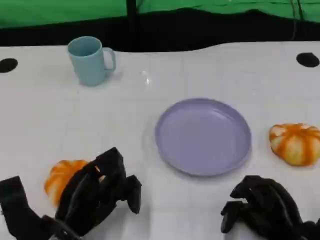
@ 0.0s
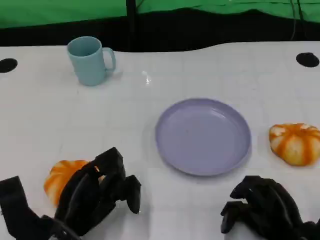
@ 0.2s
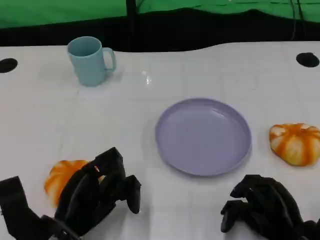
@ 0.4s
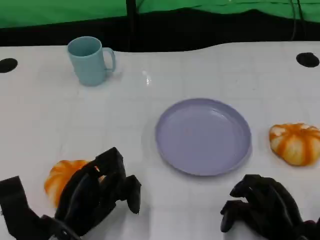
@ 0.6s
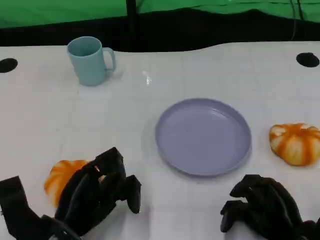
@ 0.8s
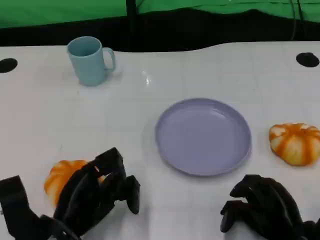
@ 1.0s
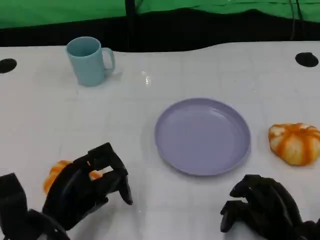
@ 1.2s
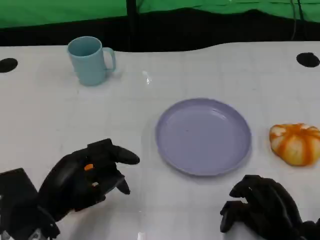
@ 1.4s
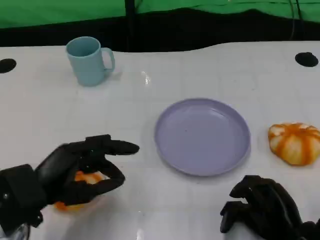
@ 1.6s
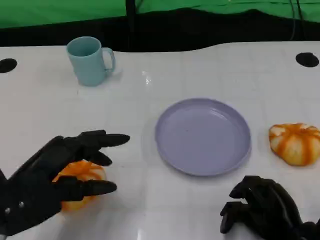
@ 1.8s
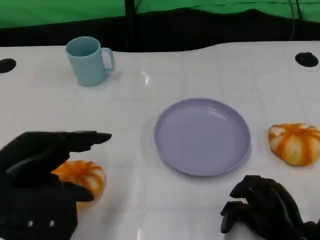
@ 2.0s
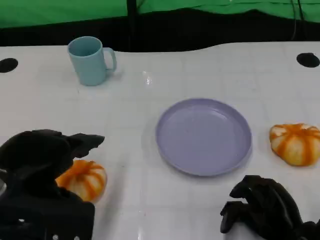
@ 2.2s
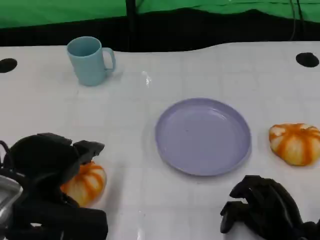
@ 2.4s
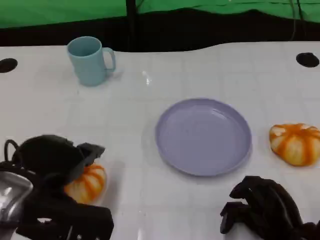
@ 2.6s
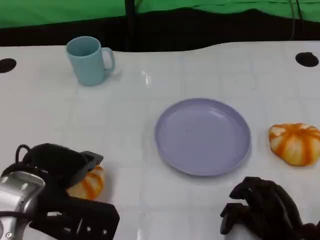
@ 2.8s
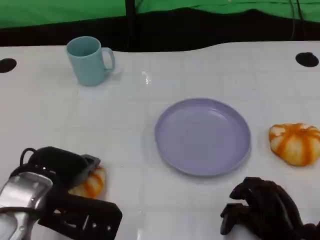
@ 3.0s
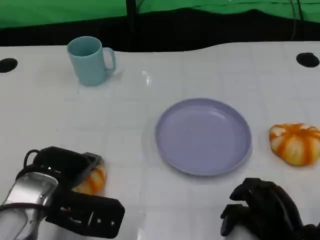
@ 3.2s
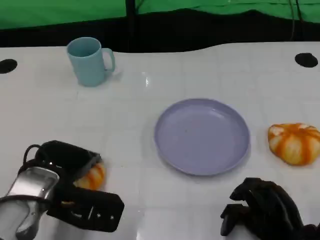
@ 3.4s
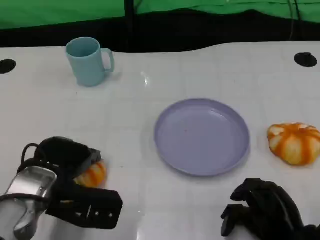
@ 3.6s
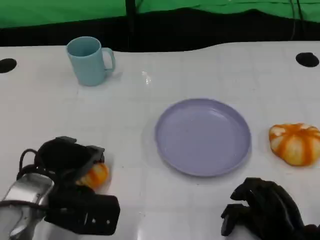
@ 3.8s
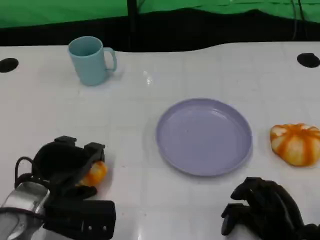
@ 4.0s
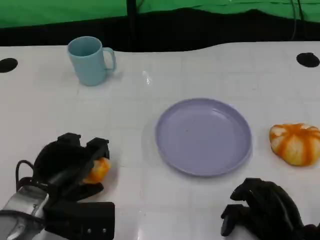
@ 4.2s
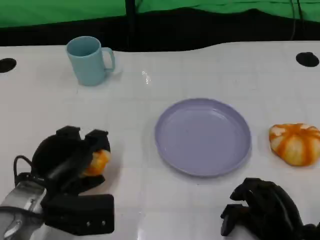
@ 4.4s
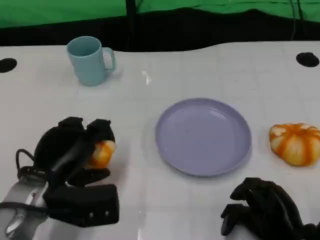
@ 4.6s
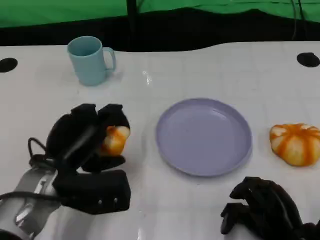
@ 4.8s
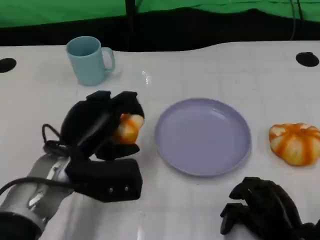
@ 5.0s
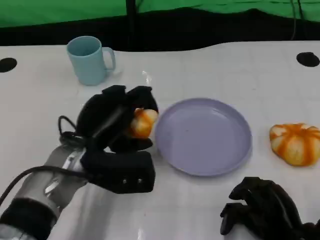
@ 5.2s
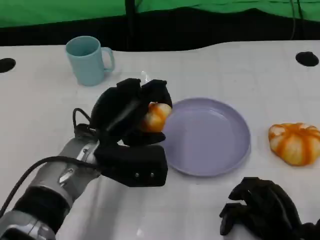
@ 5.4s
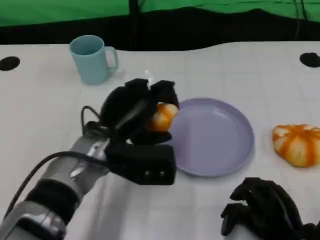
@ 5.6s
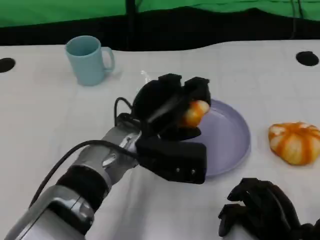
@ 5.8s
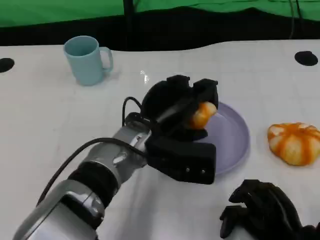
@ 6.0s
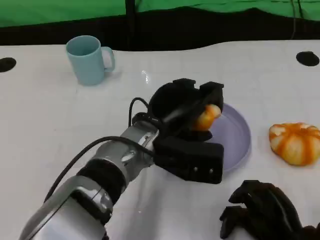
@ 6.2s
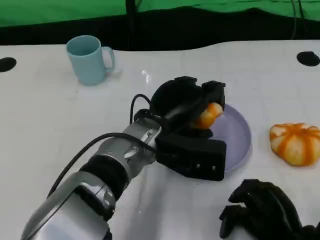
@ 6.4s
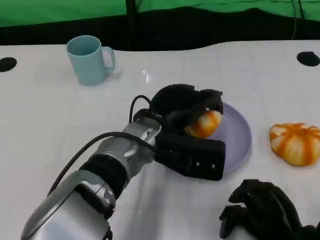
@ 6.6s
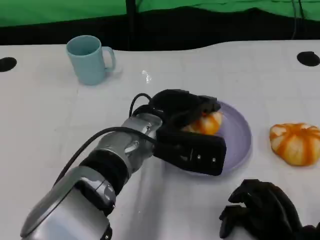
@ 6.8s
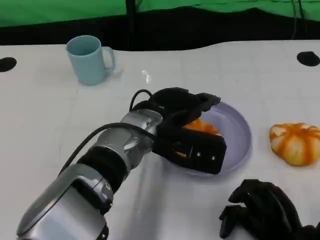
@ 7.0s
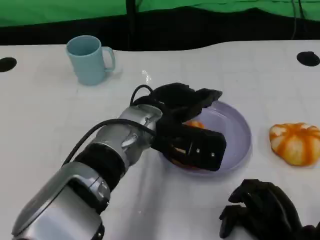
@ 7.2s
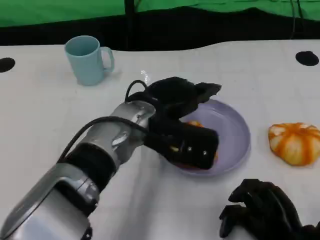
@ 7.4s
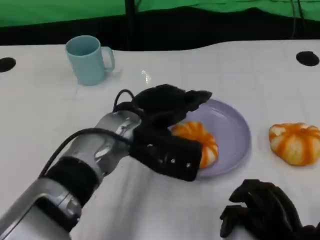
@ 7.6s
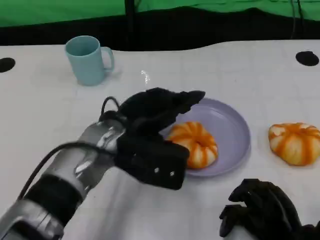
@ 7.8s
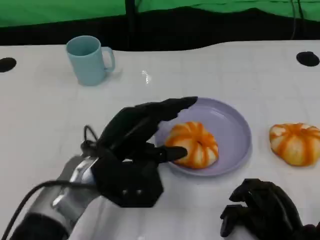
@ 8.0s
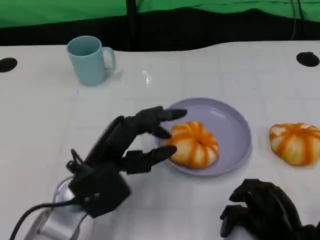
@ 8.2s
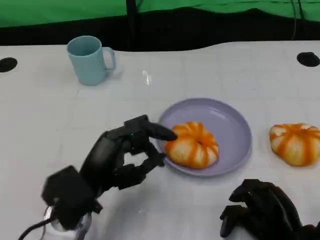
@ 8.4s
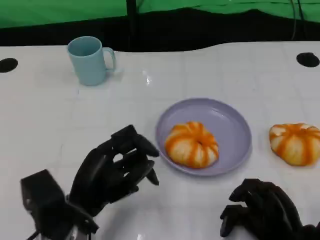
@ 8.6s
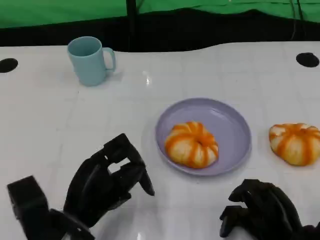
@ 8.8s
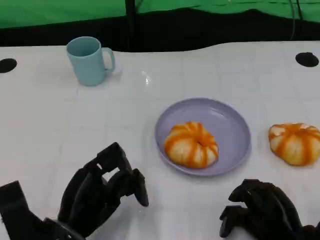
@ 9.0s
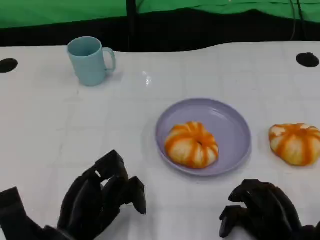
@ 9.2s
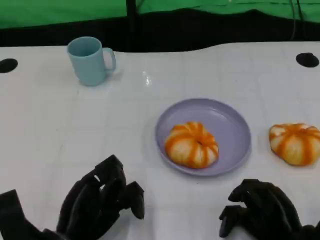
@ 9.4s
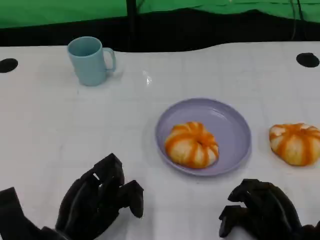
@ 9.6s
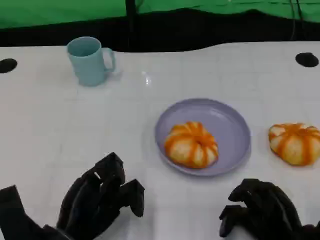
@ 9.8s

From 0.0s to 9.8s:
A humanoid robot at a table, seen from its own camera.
Task of the whole recording: Grasp the bread from the table and place it into the plate.
From 0.0s to 1.4s: The left hand moves approximately 5 cm.
From 1.4s to 2.8s: The left hand goes about 5 cm upward.
From 2.8s to 4.2s: The left hand moves downward, approximately 5 cm.
From 4.2s to 5.6s: The left hand goes roughly 15 cm to the right, forward and upward.
From 5.6s to 7.0s: The left hand travels to the right by about 5 cm.
From 7.0s to 8.4s: The left hand heads to the left, backward and downward, covering roughly 15 cm.
From 8.4s to 9.8s: The left hand changes place by roughly 5 cm.

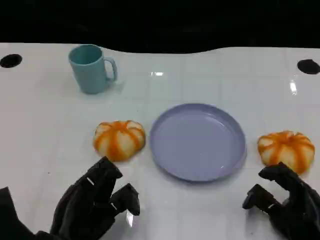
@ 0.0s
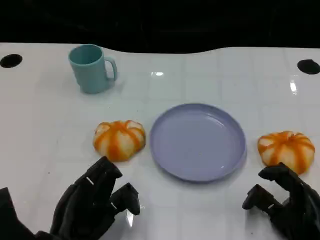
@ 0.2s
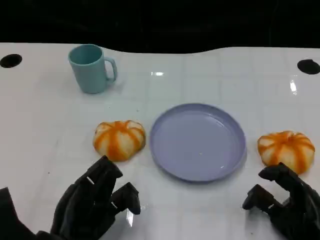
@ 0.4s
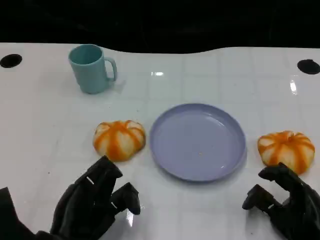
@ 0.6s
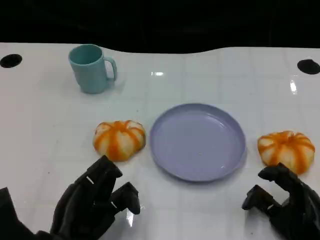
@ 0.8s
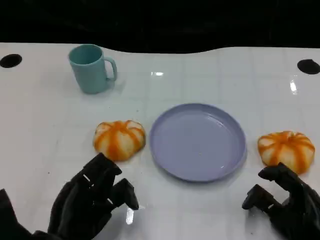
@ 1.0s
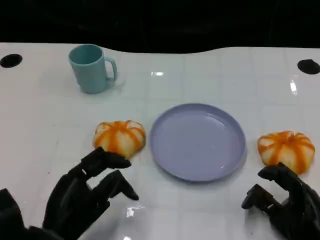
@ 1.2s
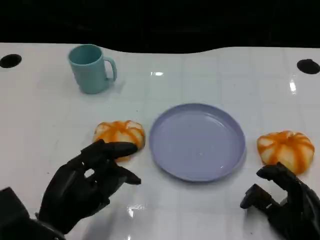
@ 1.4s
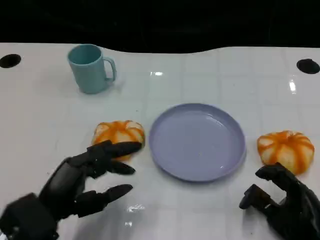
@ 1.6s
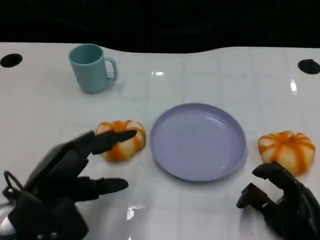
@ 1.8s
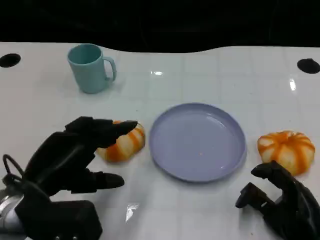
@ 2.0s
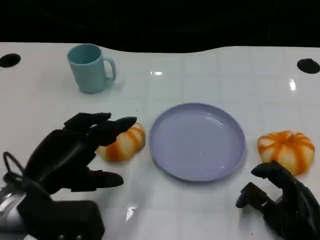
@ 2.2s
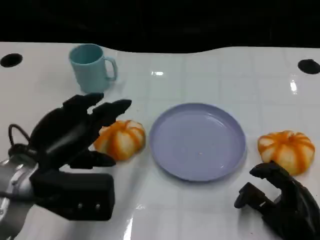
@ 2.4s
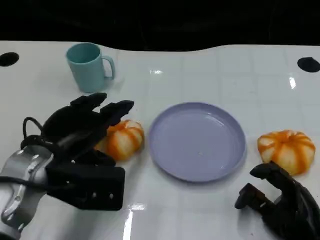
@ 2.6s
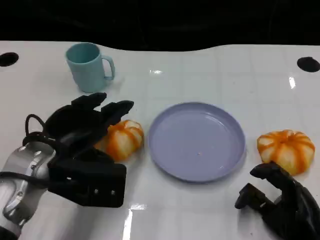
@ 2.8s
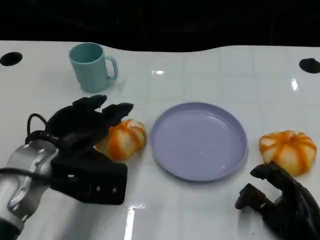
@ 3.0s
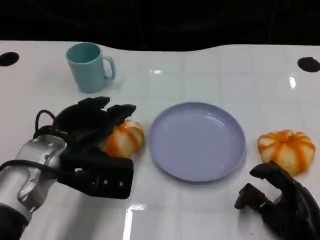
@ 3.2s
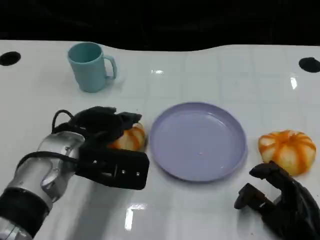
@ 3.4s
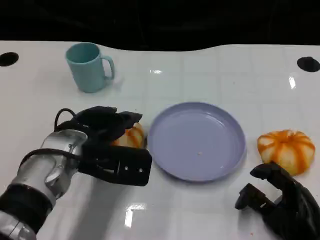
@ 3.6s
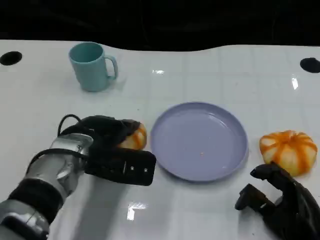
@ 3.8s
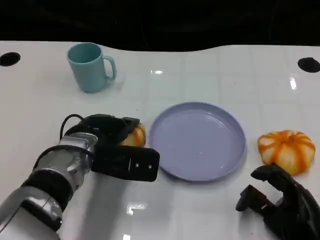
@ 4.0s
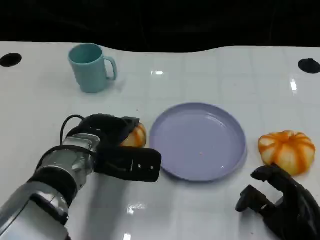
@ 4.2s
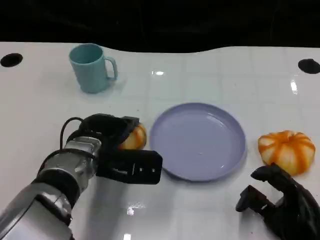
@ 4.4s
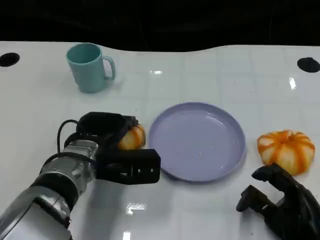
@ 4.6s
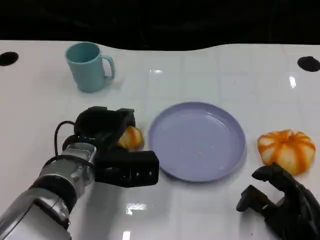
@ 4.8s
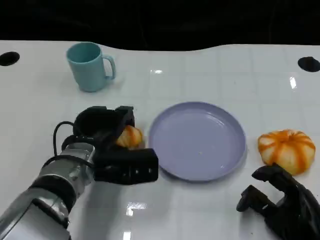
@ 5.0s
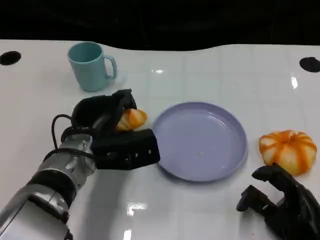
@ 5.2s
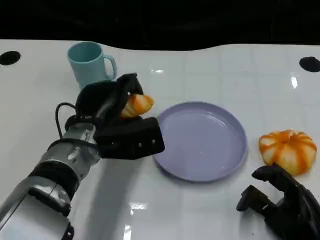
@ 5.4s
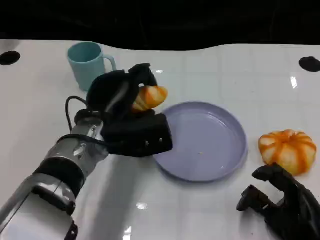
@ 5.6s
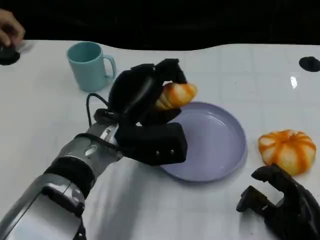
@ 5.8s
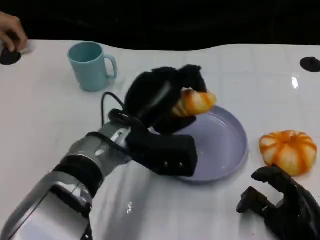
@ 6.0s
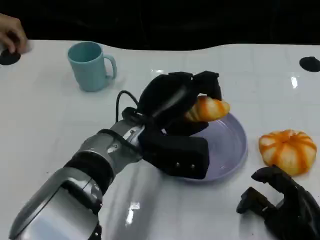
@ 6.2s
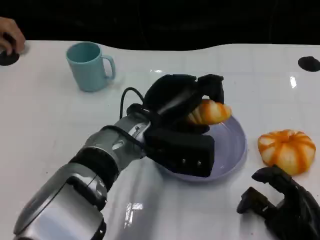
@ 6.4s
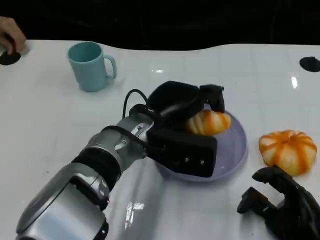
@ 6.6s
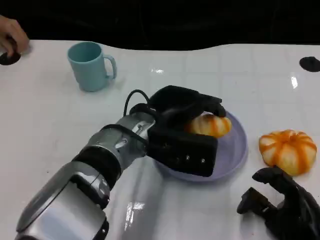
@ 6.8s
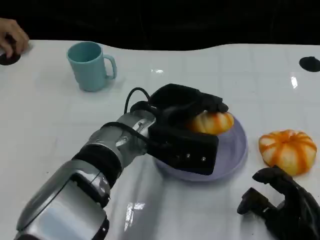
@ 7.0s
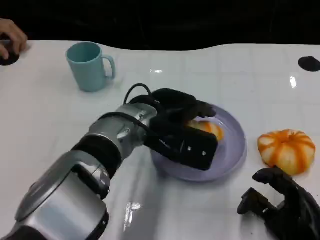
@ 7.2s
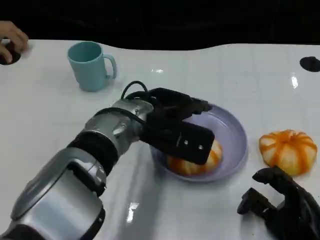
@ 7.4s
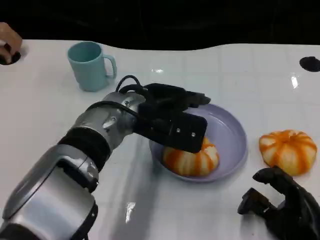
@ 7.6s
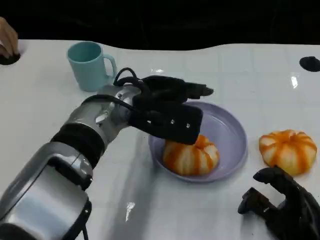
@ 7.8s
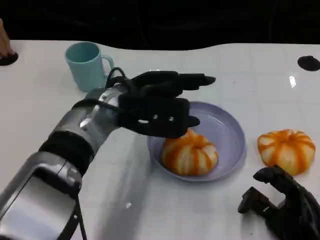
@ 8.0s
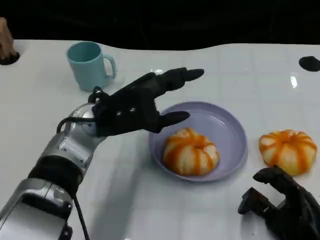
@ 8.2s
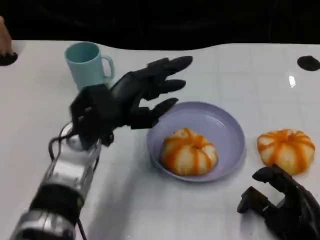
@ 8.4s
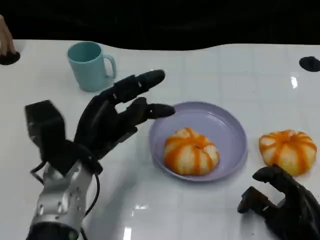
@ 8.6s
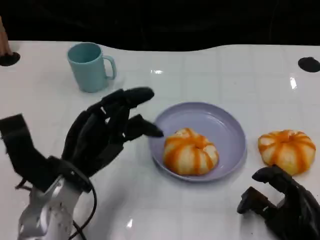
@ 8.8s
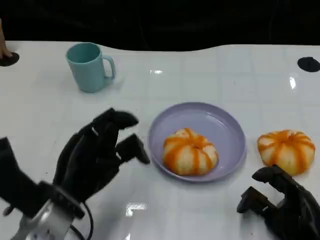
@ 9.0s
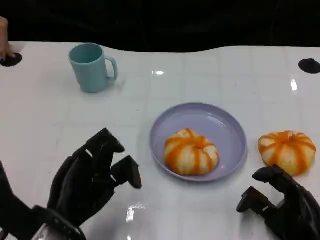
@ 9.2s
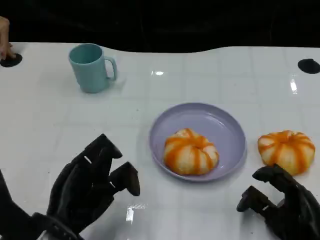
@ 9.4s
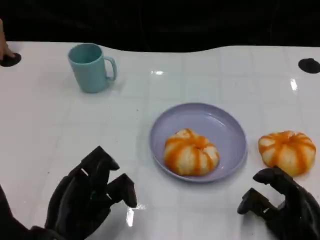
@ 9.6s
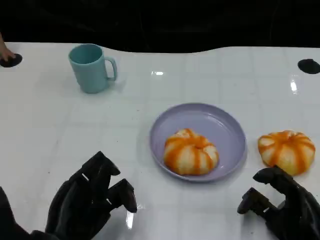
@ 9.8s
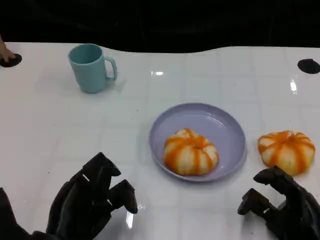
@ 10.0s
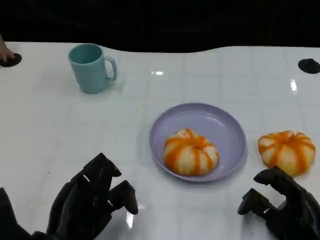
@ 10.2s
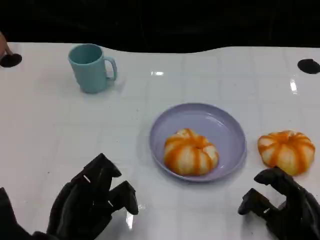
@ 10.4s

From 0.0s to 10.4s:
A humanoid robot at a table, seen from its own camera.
Task of the whole recording: Grasp the bread from the table and place it into the plate.
From 1.4s to 3.0s: The left hand goes approximately 10 cm forward and upward.
From 3.0s to 4.4s: The left hand shifts approximately 5 cm to the right.
From 4.4s to 6.0s: The left hand moves to the right, about 5 cm.
From 7.4s to 9.0s: The left hand shifts approximately 20 cm to the left, backward and downward.
From 9.0s to 10.4s: The left hand ends up about 5 cm from where it was.

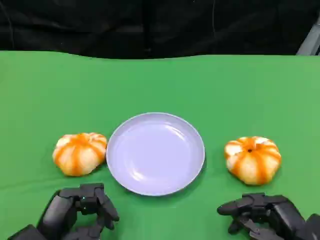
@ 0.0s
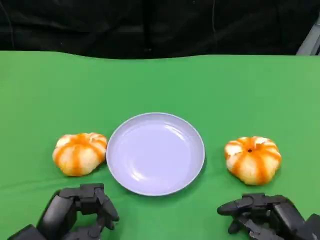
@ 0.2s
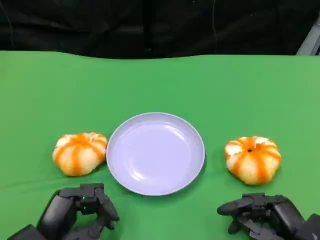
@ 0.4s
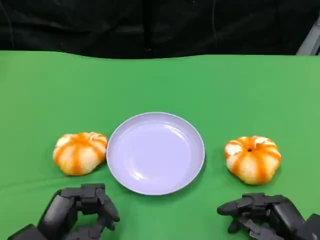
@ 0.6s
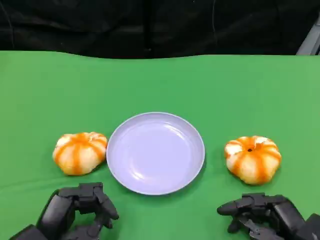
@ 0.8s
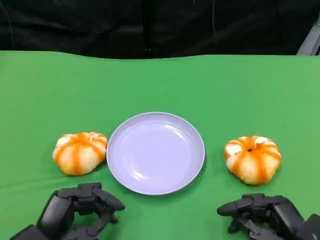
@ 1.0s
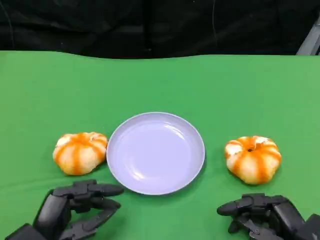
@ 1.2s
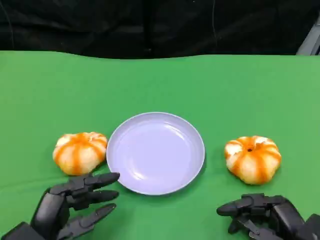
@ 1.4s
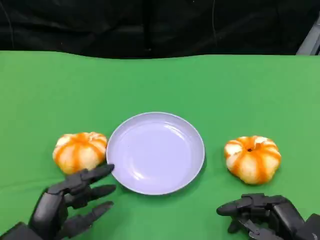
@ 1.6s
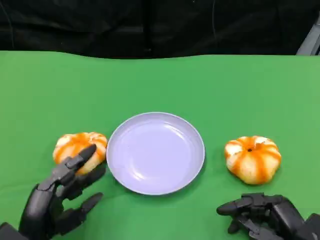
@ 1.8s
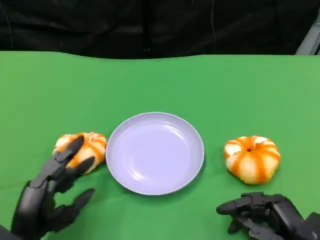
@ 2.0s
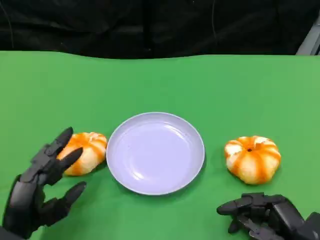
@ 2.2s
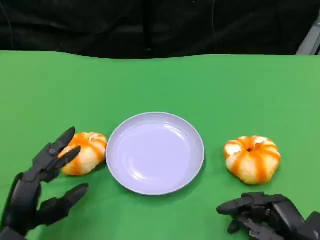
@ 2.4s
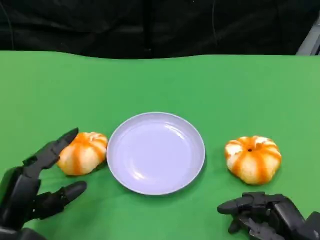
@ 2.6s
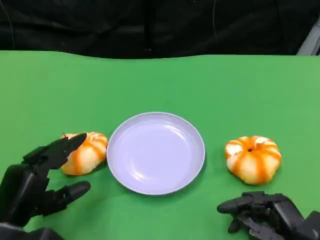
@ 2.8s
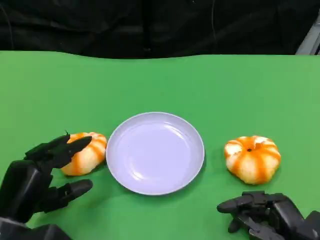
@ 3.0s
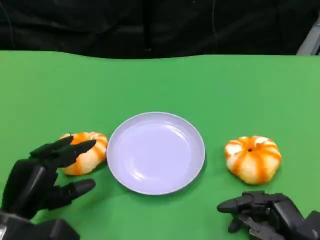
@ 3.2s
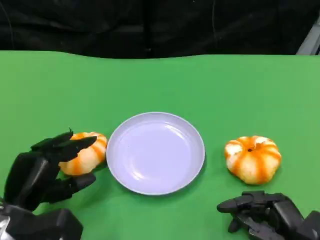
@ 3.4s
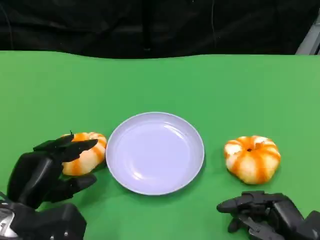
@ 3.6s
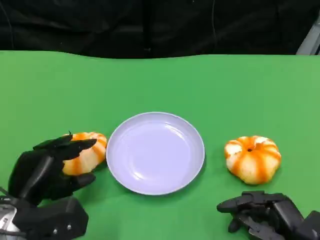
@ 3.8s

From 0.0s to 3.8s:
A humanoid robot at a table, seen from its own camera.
Task of the whole recording: Grasp the bread from the table and place it into the plate.
From 0.0s to 1.2s: The two hands keep their place.
